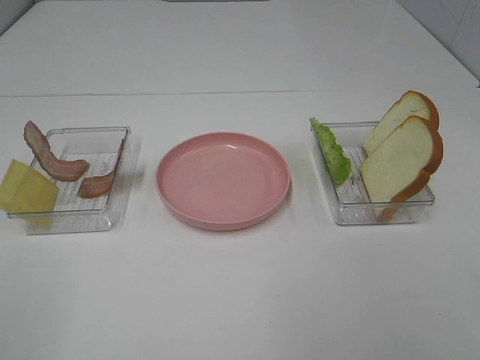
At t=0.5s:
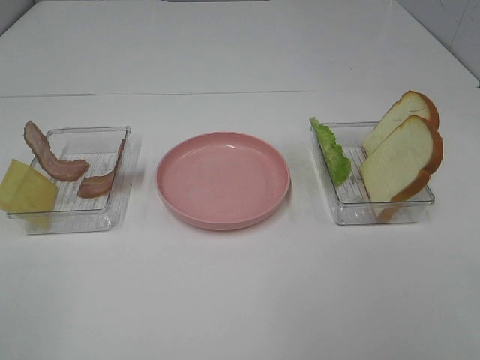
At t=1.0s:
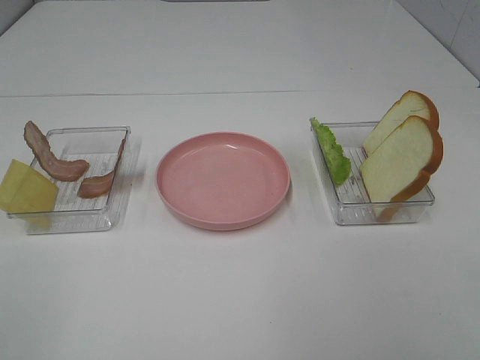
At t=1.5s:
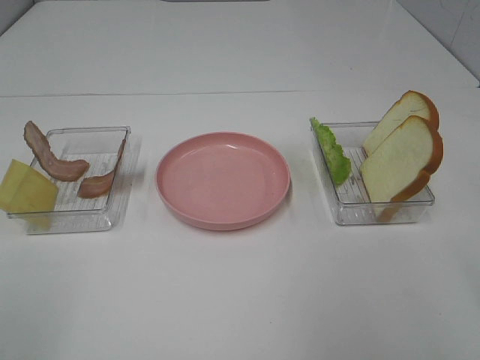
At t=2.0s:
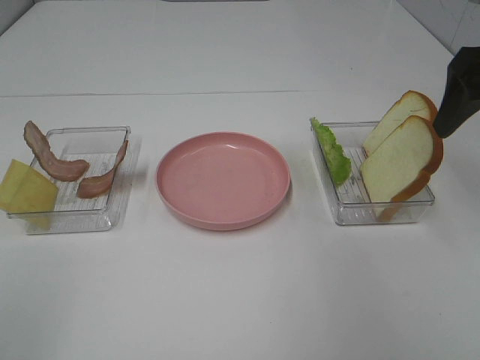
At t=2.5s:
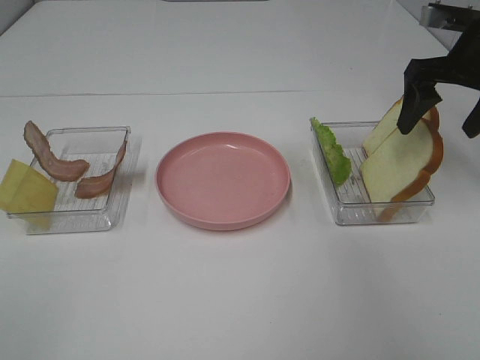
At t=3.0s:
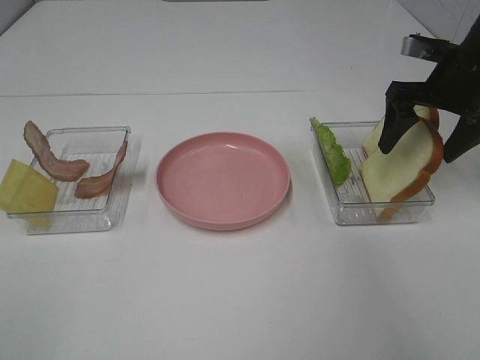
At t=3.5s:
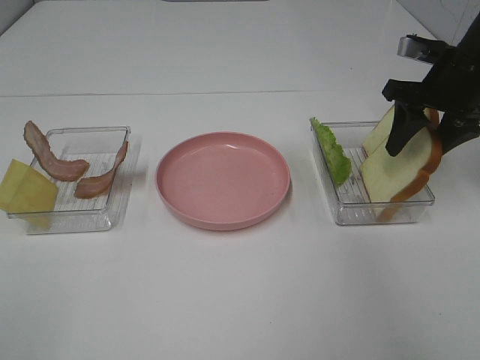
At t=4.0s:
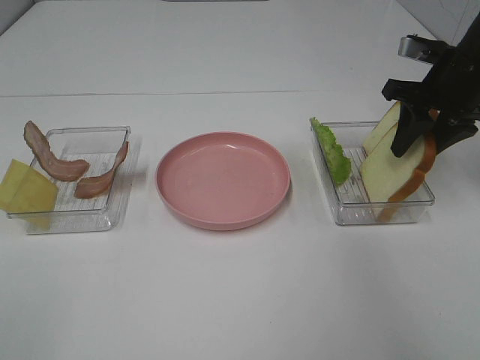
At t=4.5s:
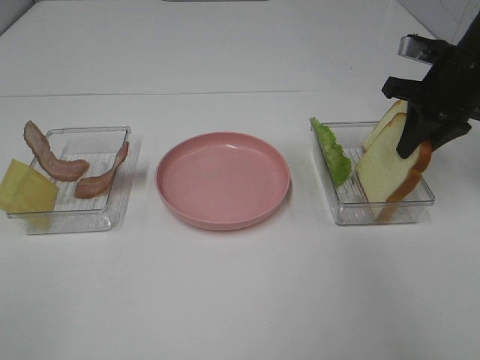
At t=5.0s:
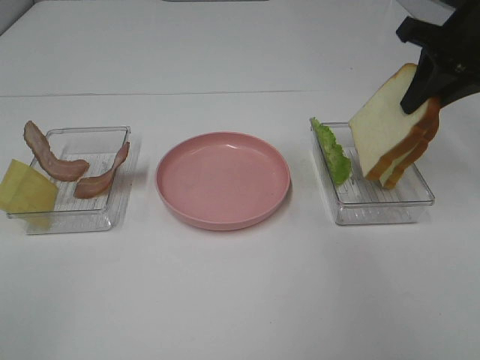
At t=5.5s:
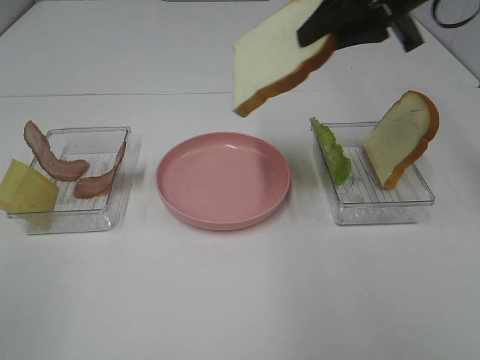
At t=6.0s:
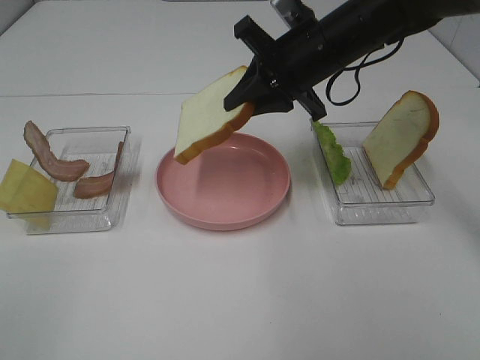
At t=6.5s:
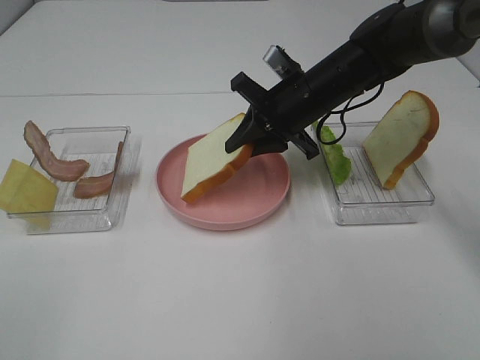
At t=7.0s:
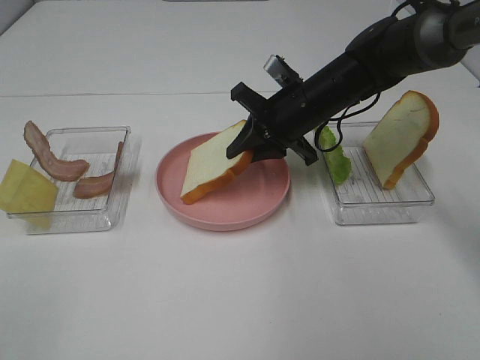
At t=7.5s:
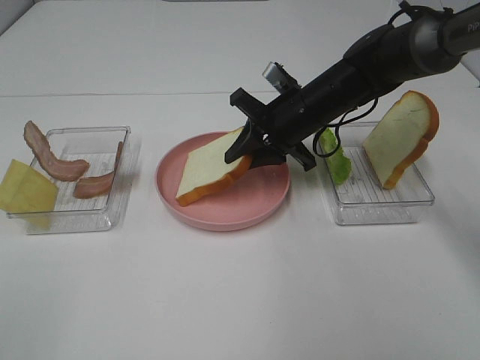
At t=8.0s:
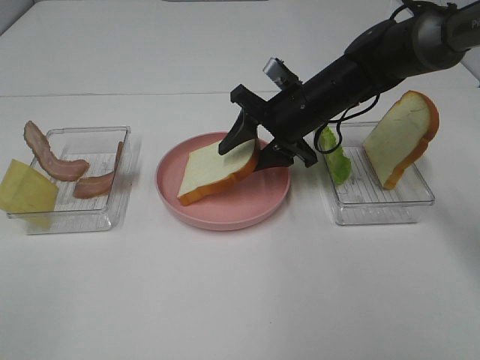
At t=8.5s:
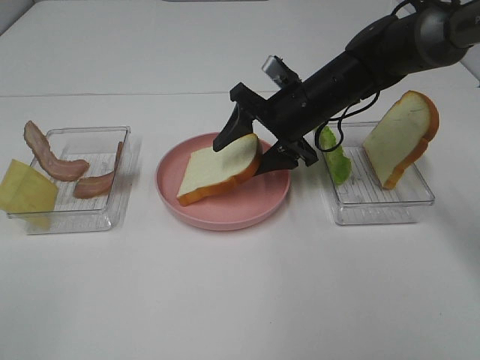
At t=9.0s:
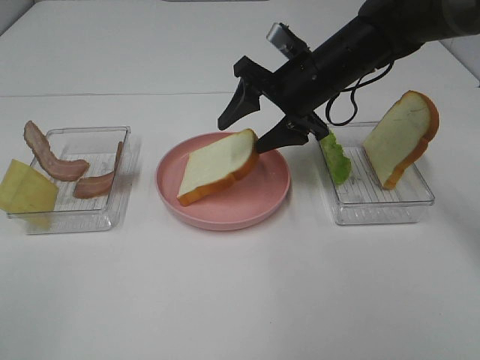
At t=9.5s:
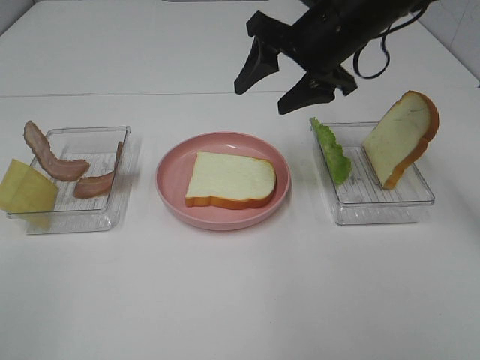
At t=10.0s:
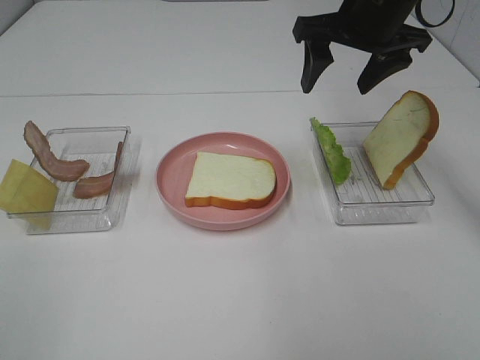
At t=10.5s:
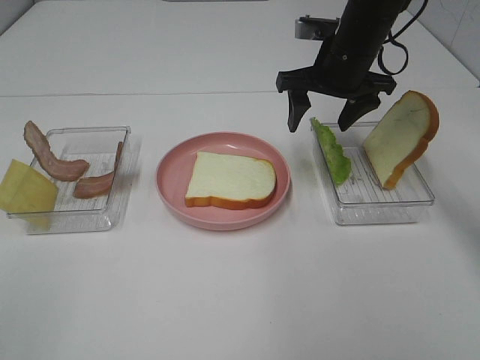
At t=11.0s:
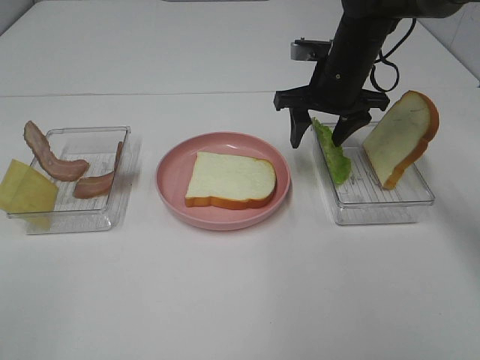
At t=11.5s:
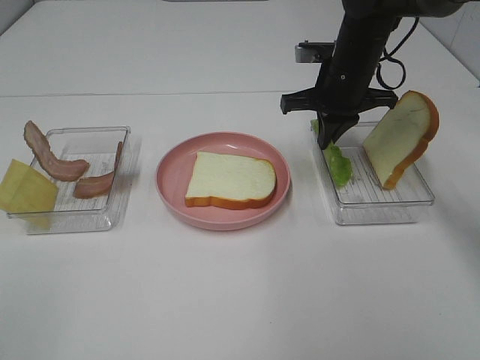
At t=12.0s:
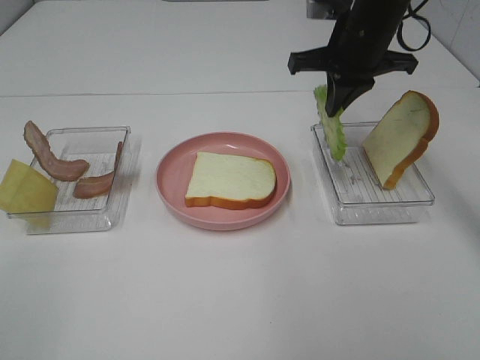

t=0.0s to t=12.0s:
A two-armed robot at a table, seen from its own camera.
Task of the whole recording: Make sandwiches.
Step, t=0.0s to t=4.0s: Right hand:grab the bread slice.
Step, t=4.5s to t=9.0s: Right hand:place the bread slice on the plate.
Step, t=9.5s to t=11.0s: Right hand:grab the lettuce slice.
t=0.0s to t=2.0s: The right gripper moves forward, approximately 30 cm.
t=2.0s to t=4.0s: The right gripper heads downward and forward, covering some 10 cm, and closes its fingers.
t=4.0s to t=6.0s: The right gripper shifts some 15 cm to the left.
t=6.0s to t=8.0s: The right gripper is displaced downward by roughly 10 cm, and opens its fingers.
t=8.0s to t=10.0s: The right gripper moves upward, about 15 cm.
t=10.0s to t=12.0s: The right gripper reaches about 10 cm downward, then returns, and closes up.

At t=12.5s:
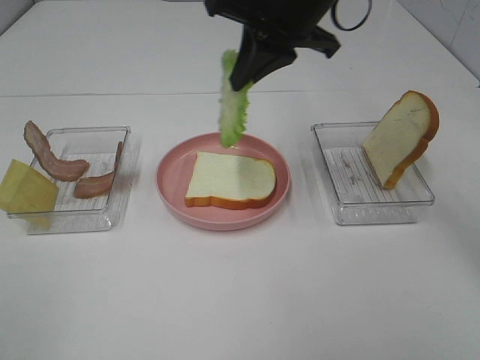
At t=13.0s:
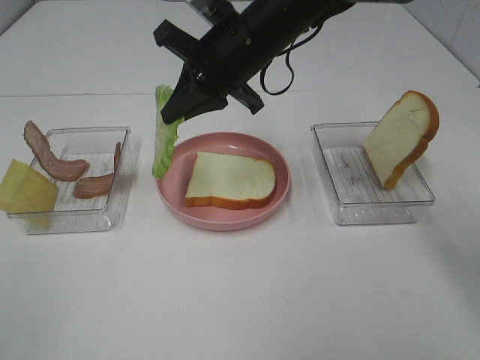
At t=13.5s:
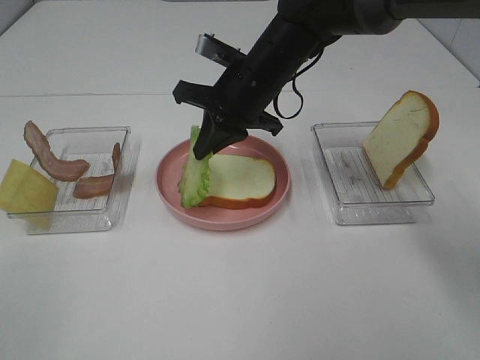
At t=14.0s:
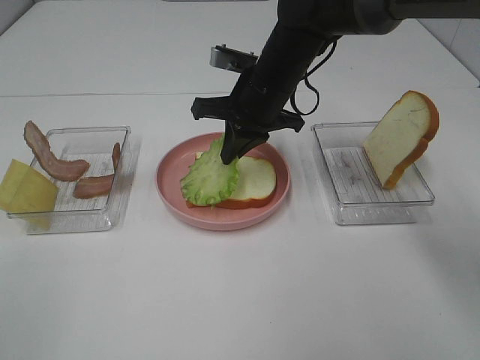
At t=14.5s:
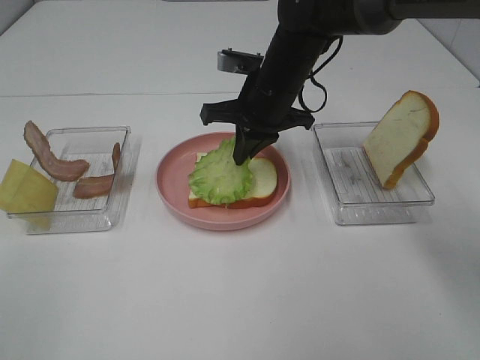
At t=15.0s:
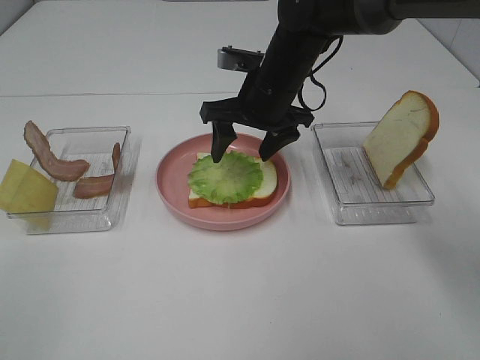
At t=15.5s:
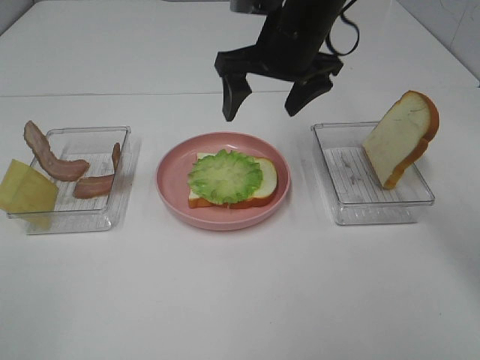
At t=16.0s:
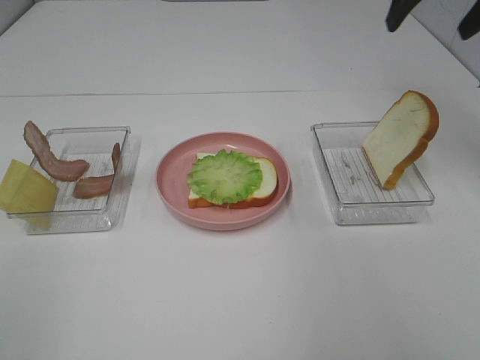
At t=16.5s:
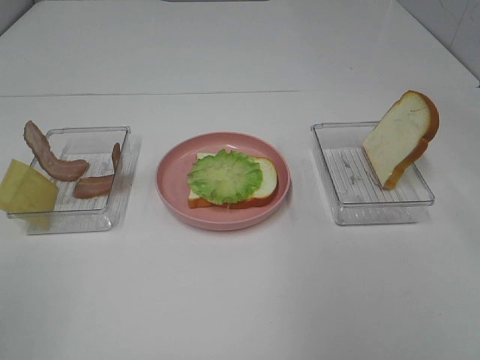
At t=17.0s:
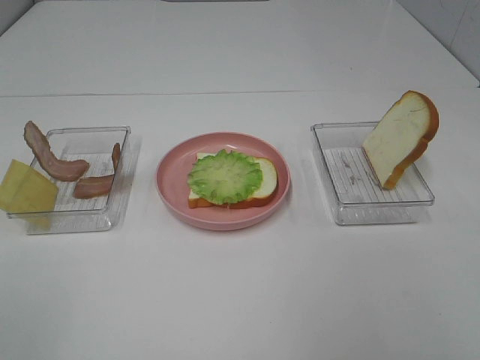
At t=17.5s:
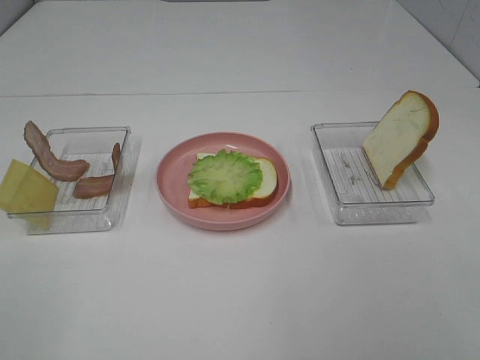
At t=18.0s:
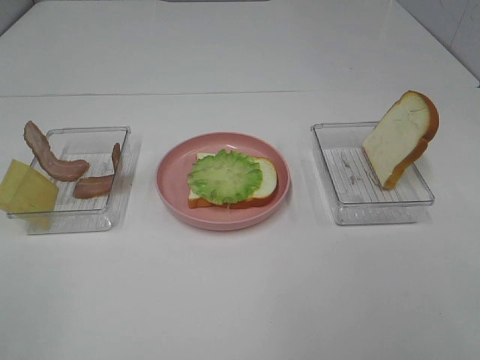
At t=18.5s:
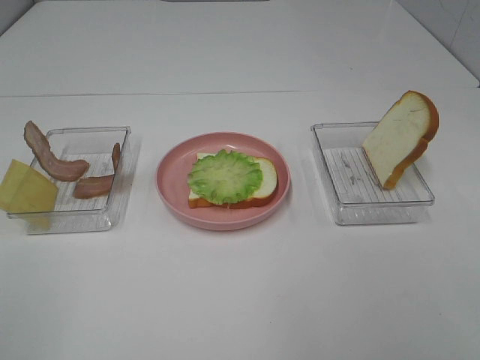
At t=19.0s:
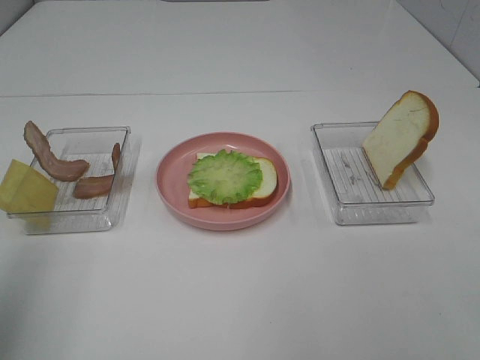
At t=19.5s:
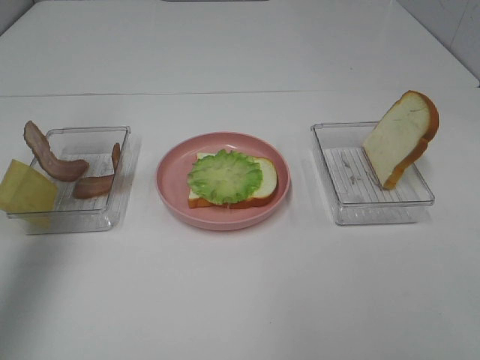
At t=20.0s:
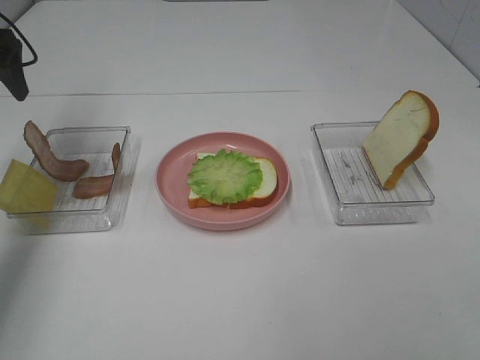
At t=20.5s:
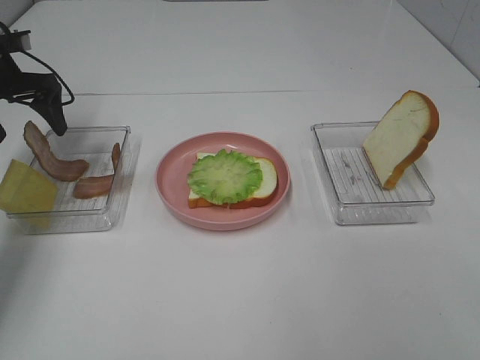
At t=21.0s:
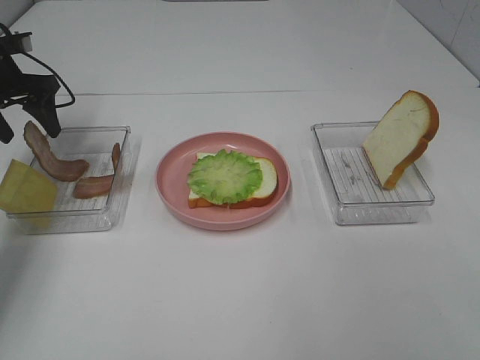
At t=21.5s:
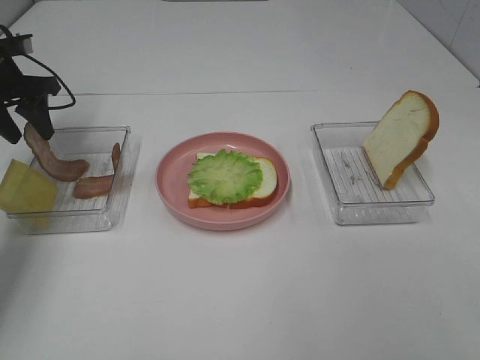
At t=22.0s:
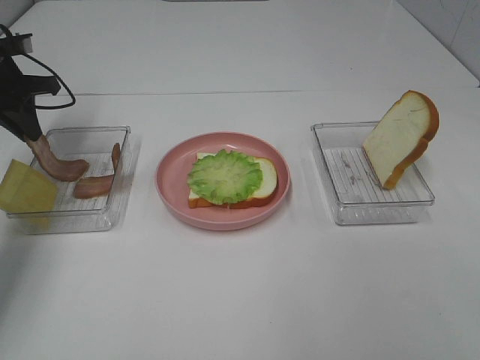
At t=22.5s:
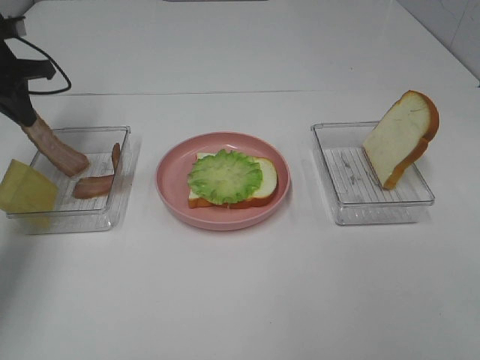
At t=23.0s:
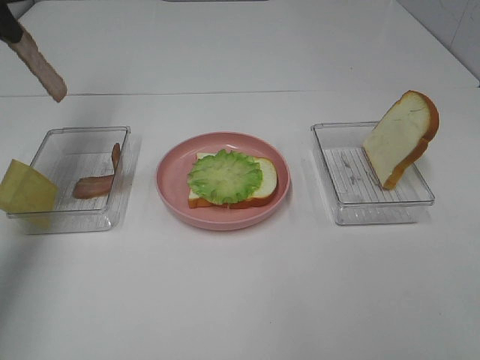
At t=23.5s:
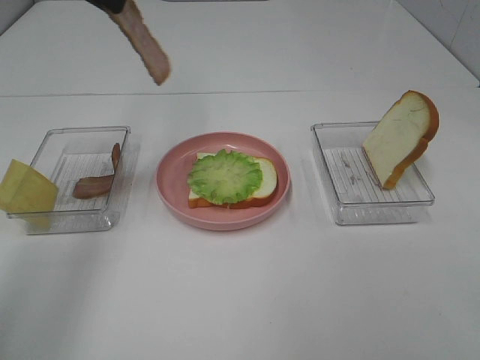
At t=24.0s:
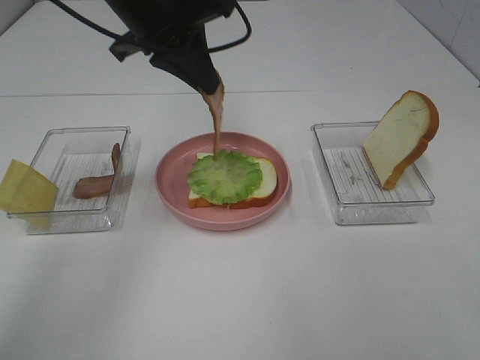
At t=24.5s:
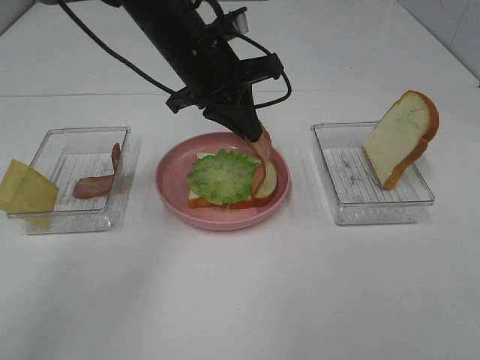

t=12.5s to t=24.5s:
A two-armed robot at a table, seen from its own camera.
Task of the whole recording: Make sandwiches.
Step, t=12.5s to t=15.0s: Right hand:place the lettuce slice on the bread slice.
Step, t=15.5s to t=22.0s: Left hand:grab the bacon.
t=12.5s to t=14.5s: The right gripper shifts approximately 15 cm downward.
t=14.5s to t=16.5s: The right gripper heads to the right, upward and backward, covering roughly 35 cm, and opens its fingers.
t=18.5s to t=20.5s: The left gripper heads forward, covering approximately 50 cm.
t=20.5s to t=22.5s: The left gripper closes its fingers.
t=22.5s to t=24.5s: The left gripper heads to the right, covering roughly 30 cm.

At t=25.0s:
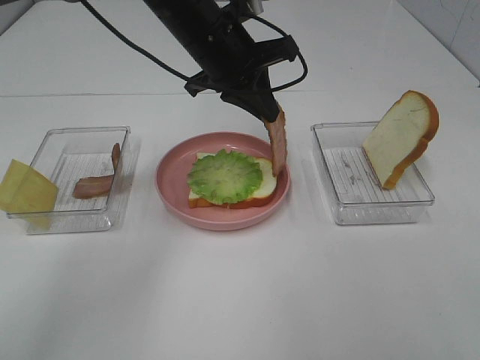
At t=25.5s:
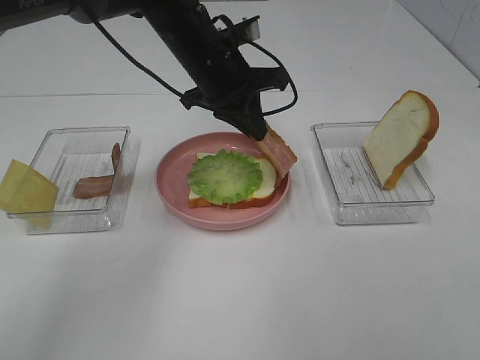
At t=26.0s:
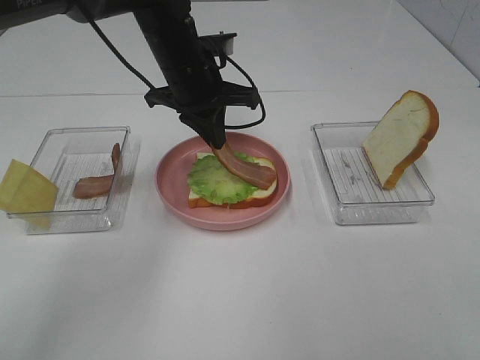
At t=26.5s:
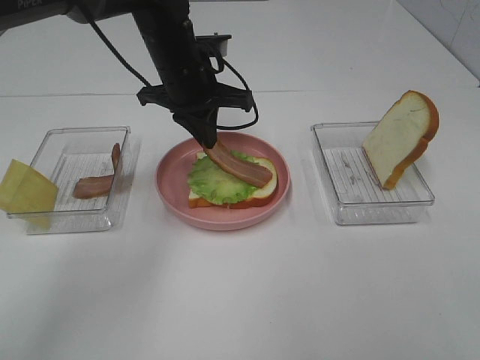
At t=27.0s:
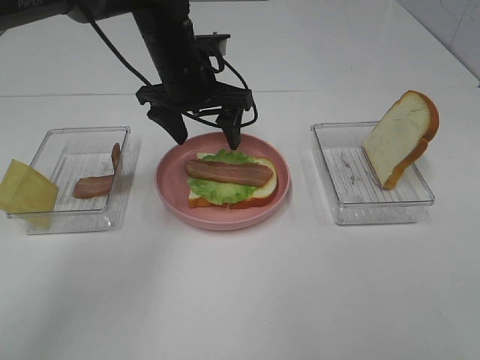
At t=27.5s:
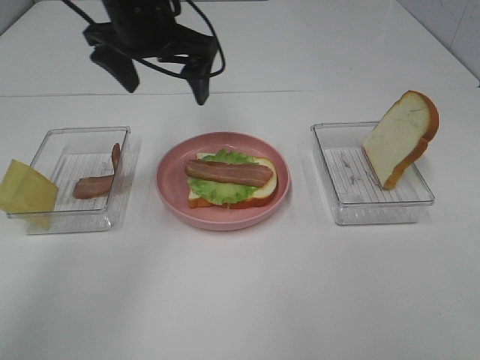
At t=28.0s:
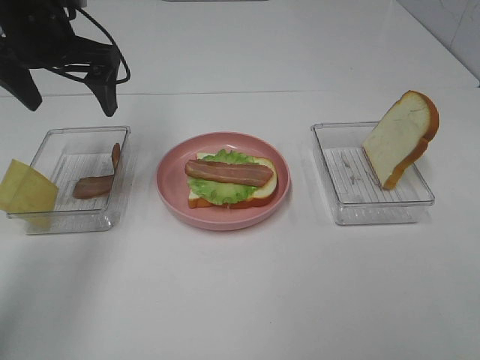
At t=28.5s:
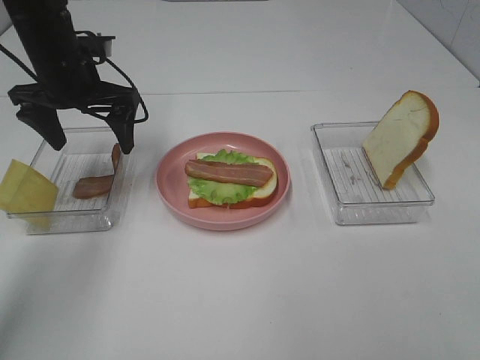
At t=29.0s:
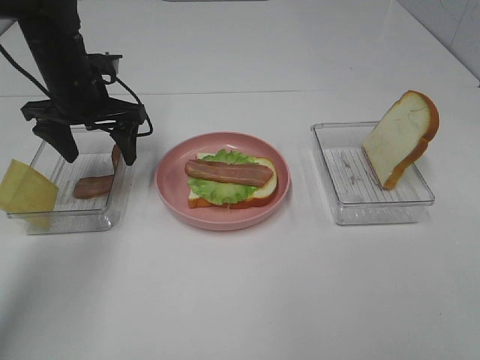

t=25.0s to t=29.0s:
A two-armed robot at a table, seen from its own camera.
Task of the whole recording: Make sandwiches.
t=25.0s to t=27.0s: The left gripper ends up approximately 5 cm from where it was, and opens.
t=27.0s to t=29.0s: The left gripper travels to the left by approximately 15 cm.
